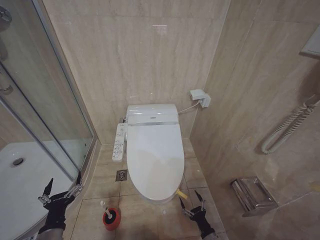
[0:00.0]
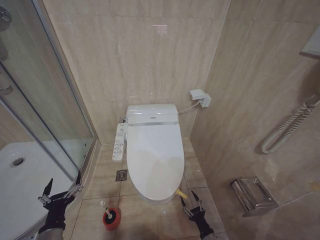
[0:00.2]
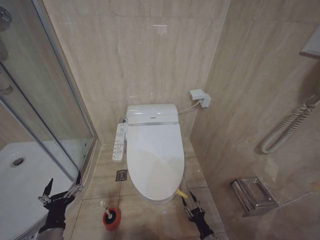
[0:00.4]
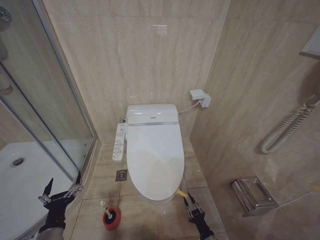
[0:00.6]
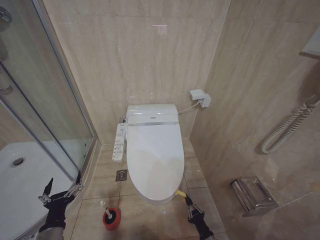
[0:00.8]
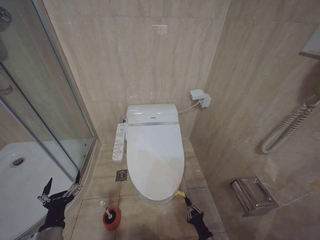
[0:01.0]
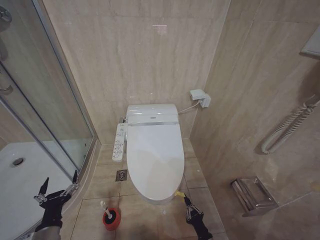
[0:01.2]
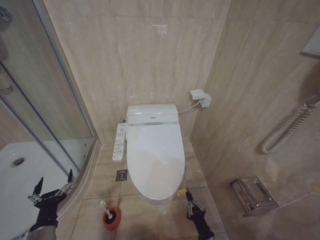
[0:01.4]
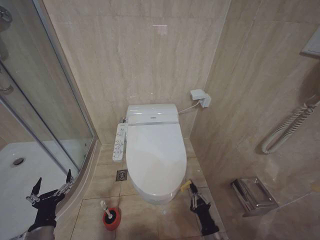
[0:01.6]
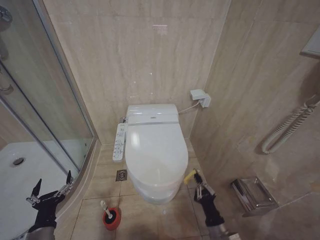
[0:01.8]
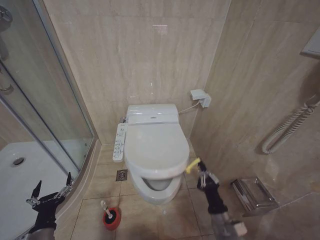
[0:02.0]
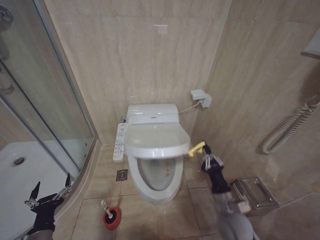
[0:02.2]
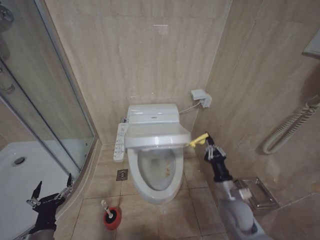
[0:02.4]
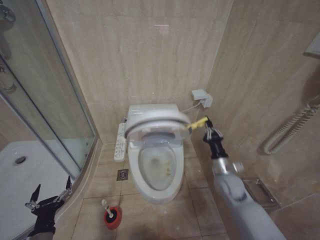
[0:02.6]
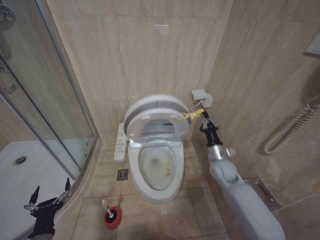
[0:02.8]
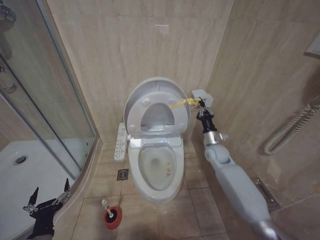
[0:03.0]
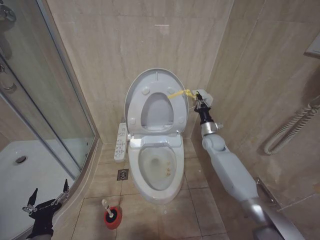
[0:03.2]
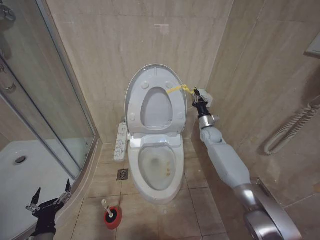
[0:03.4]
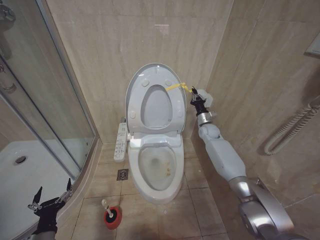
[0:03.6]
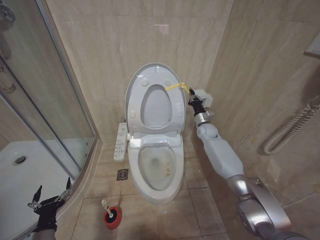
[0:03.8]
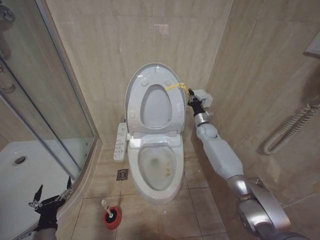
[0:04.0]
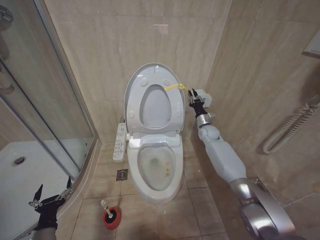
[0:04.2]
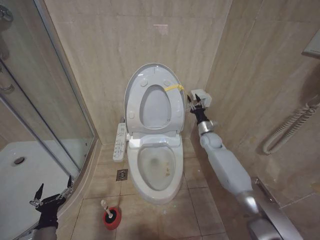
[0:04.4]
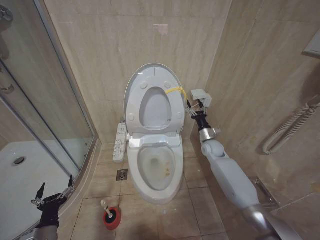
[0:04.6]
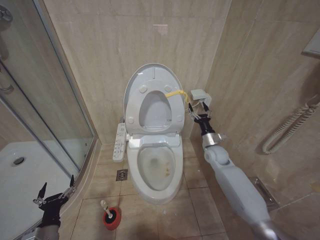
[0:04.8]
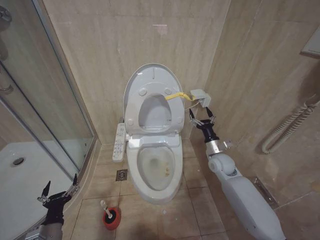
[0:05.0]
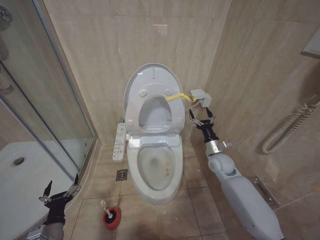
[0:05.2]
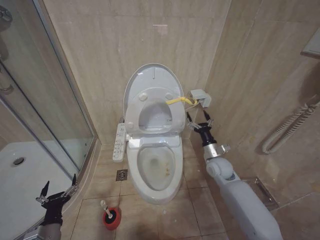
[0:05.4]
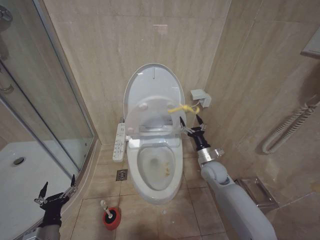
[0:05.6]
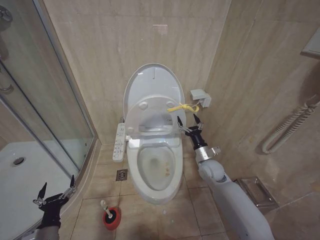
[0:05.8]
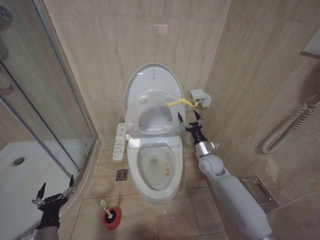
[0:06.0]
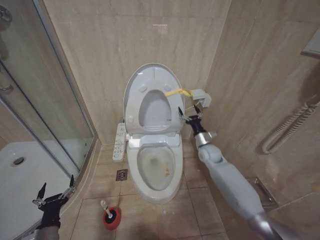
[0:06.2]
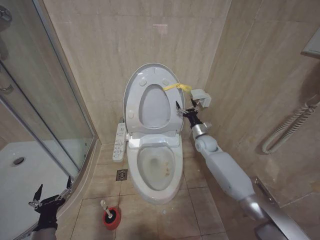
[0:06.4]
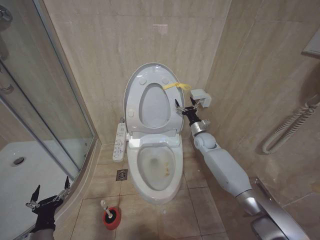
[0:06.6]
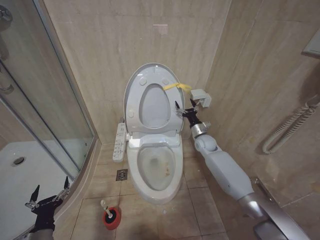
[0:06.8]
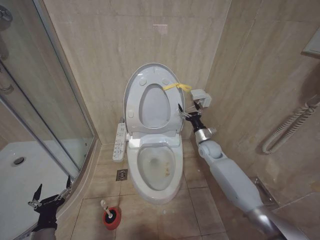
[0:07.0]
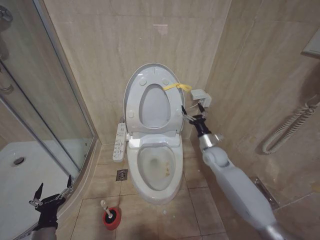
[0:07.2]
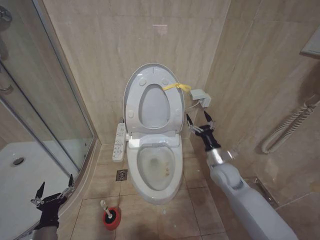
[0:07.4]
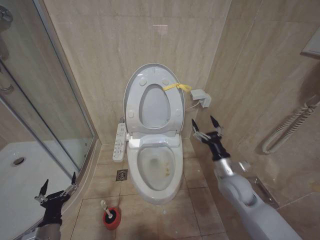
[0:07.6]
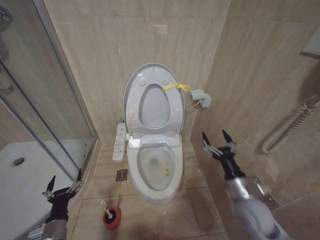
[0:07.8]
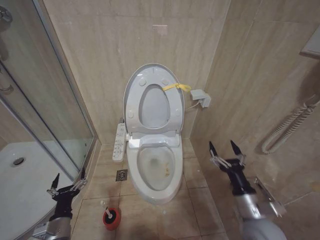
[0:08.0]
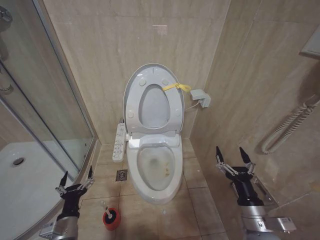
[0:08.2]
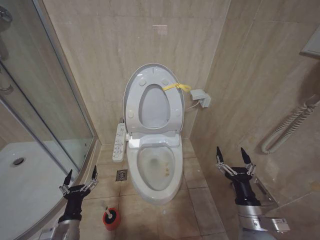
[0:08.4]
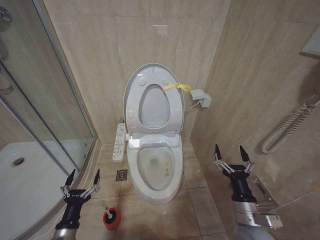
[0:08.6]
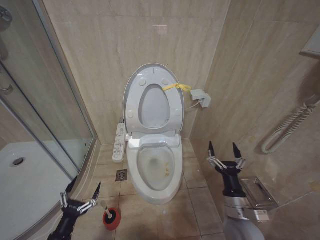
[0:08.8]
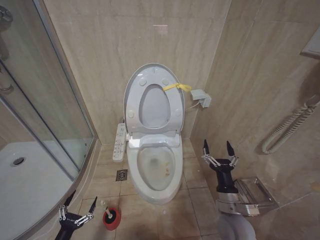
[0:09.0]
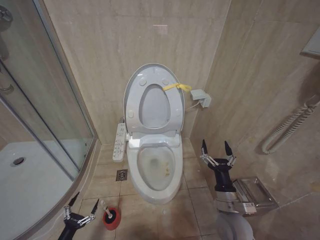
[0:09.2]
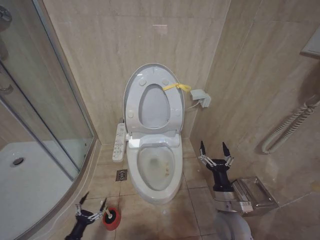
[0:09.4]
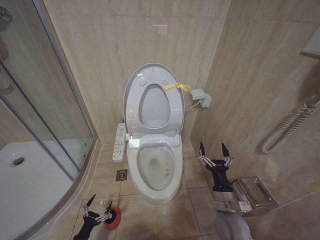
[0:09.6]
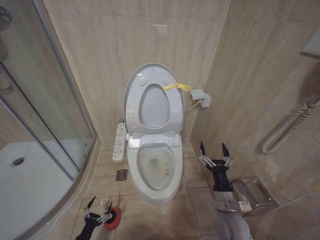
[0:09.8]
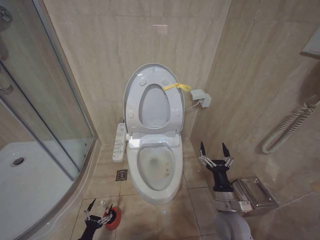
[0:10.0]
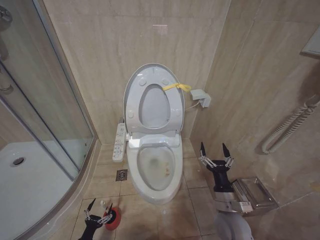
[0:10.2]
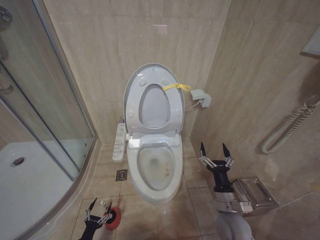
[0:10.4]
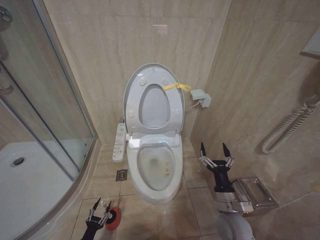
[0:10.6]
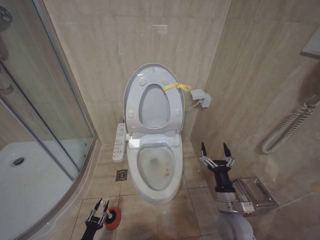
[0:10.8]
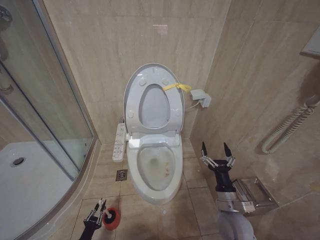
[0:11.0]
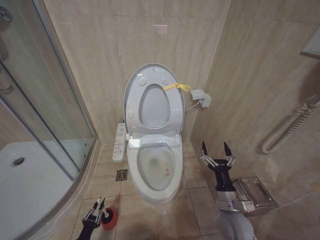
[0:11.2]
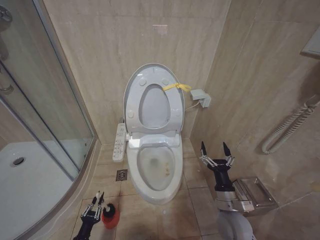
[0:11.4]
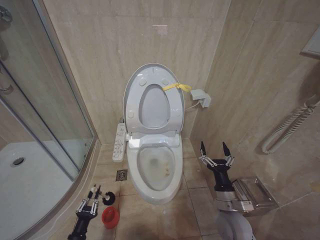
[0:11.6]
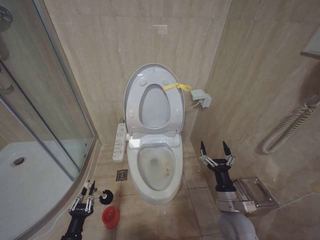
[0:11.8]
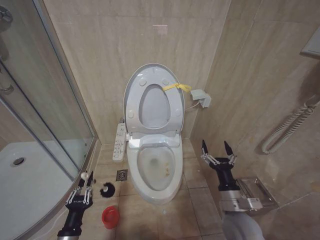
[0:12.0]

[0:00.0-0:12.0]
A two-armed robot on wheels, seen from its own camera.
Task of the whole recording: Open the toilet lid, clean the toilet bowl with a toilet brush, close the toilet lid, and flush.
0:00.0 to 0:01.6: The right gripper heads upward, covering roughly 10 cm, and closes its fingers.
0:01.6 to 0:03.0: The right gripper heads forward and upward, covering roughly 35 cm.
0:03.0 to 0:04.4: The right gripper heads forward, covering approximately 10 cm.
0:04.4 to 0:06.0: The right gripper is displaced backward by about 15 cm, and opens its fingers.
0:06.0 to 0:07.6: The right gripper is displaced backward by approximately 10 cm.
0:07.6 to 0:09.0: The right gripper is displaced backward and downward by some 15 cm, while the left gripper heads downward, covering about 5 cm, and travels to the right and back again, approximately 5 cm each way.
0:09.0 to 0:10.4: The left gripper moves downward, approximately 20 cm.
0:10.4 to 0:12.0: The left gripper moves upward, approximately 20 cm, and closes up.

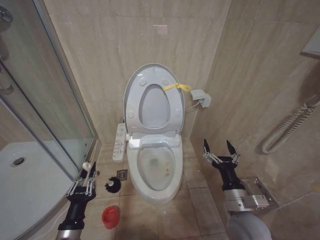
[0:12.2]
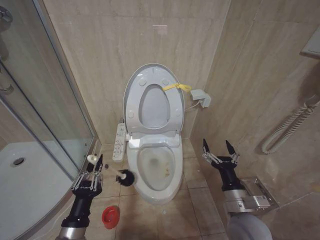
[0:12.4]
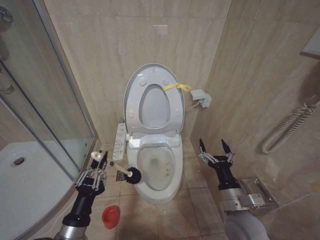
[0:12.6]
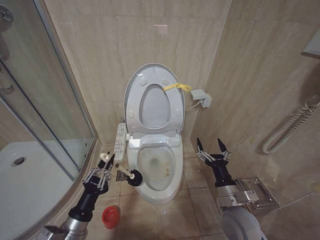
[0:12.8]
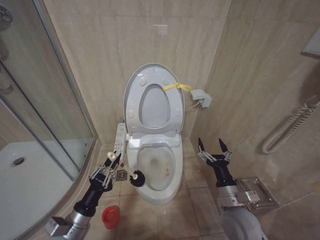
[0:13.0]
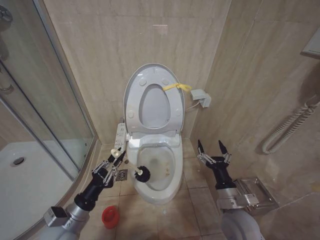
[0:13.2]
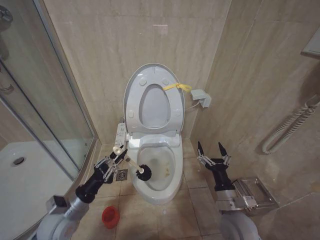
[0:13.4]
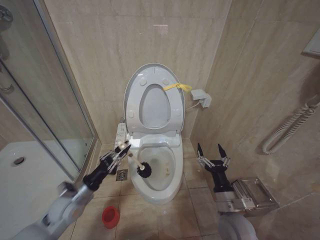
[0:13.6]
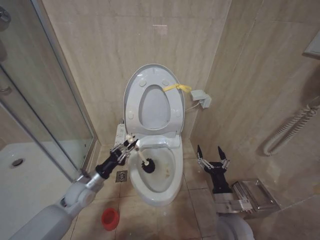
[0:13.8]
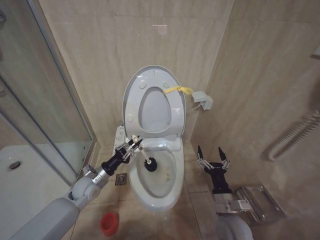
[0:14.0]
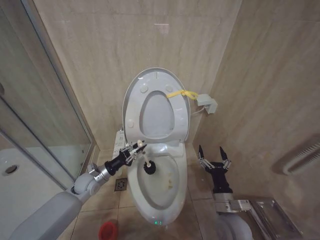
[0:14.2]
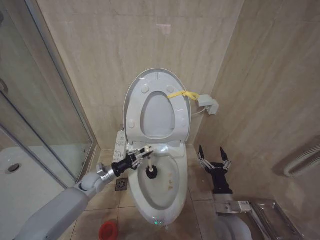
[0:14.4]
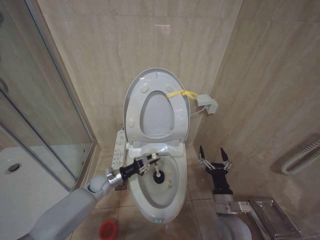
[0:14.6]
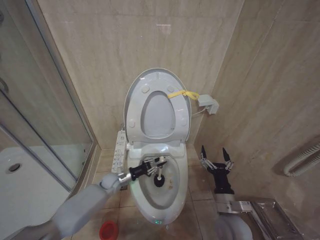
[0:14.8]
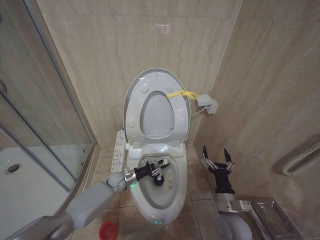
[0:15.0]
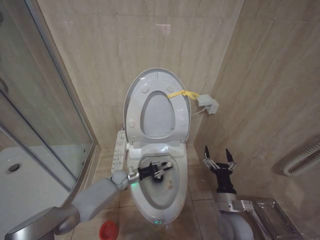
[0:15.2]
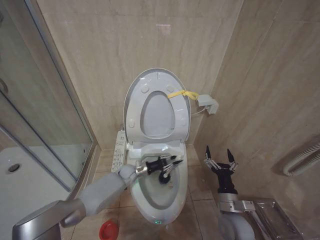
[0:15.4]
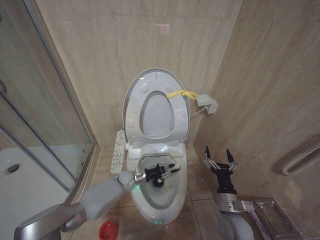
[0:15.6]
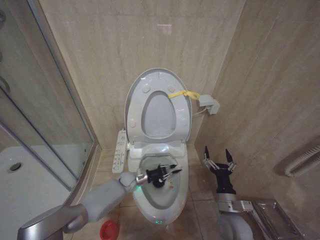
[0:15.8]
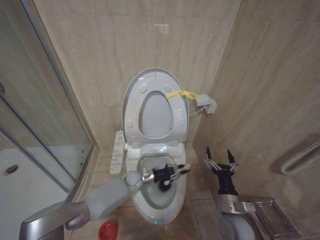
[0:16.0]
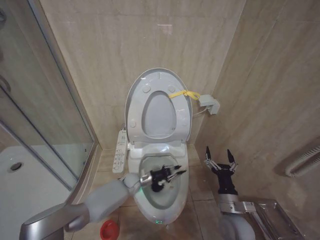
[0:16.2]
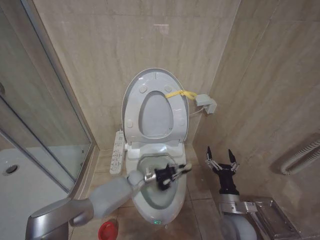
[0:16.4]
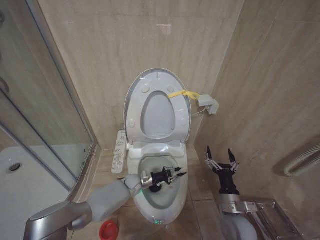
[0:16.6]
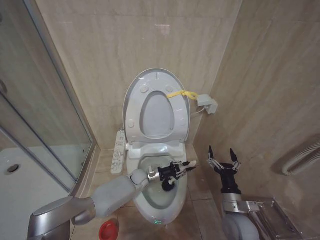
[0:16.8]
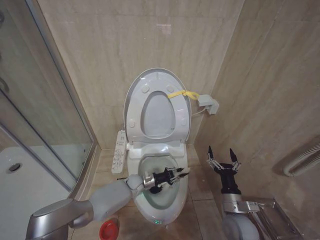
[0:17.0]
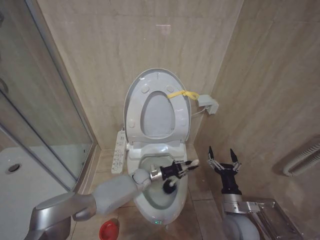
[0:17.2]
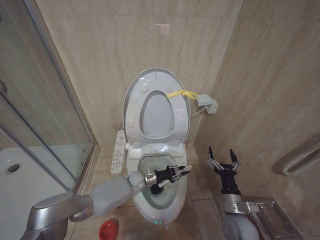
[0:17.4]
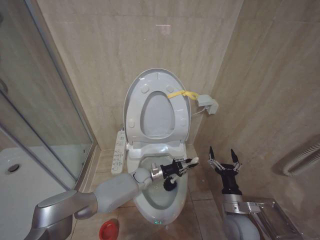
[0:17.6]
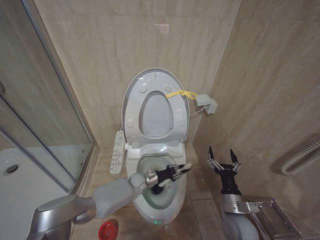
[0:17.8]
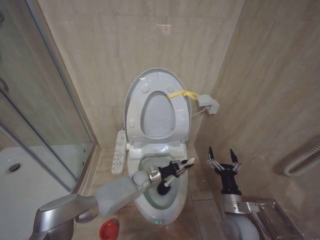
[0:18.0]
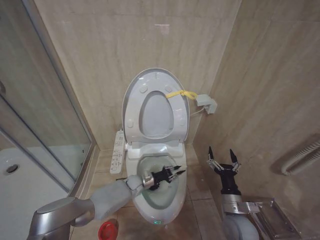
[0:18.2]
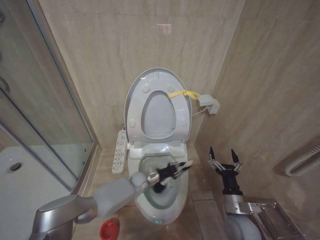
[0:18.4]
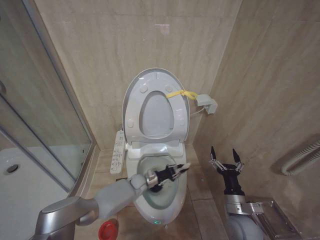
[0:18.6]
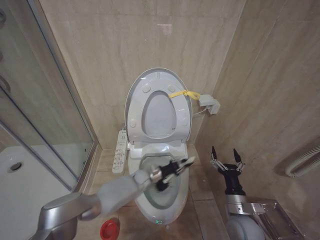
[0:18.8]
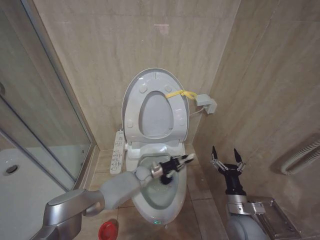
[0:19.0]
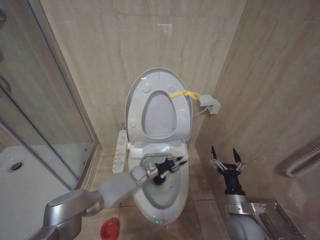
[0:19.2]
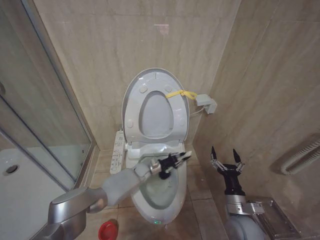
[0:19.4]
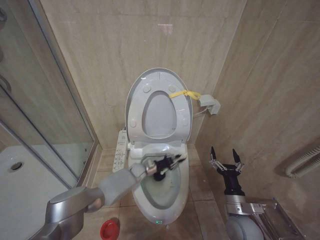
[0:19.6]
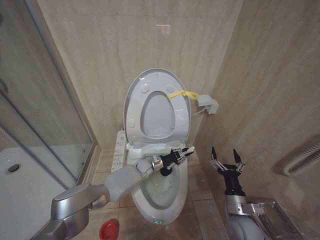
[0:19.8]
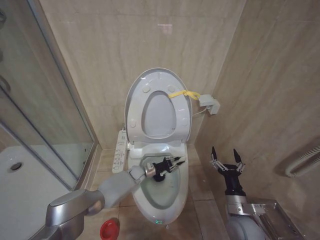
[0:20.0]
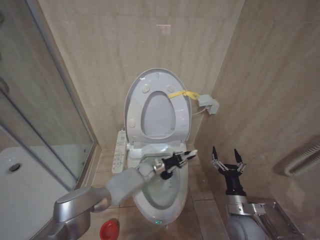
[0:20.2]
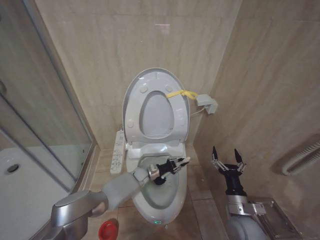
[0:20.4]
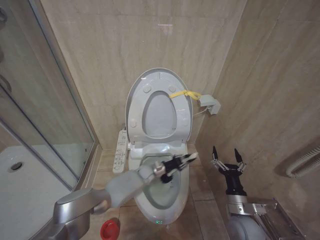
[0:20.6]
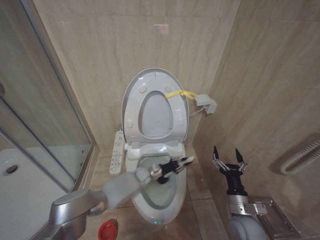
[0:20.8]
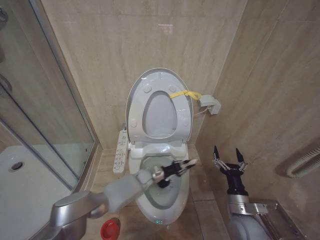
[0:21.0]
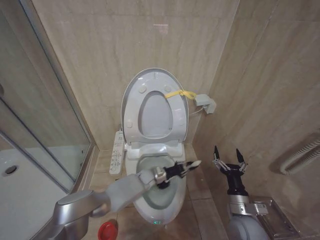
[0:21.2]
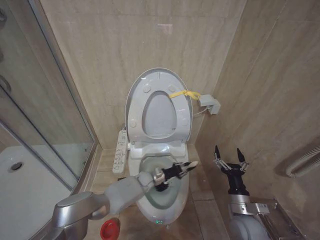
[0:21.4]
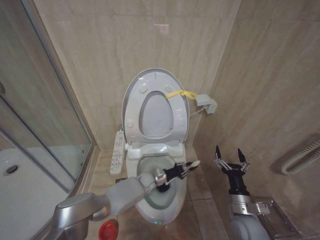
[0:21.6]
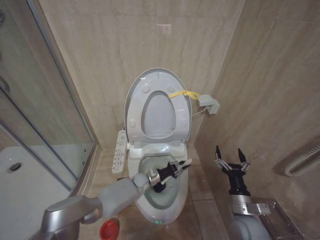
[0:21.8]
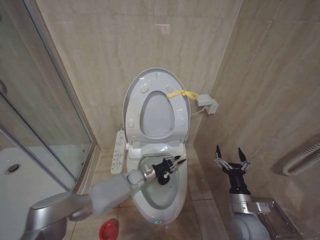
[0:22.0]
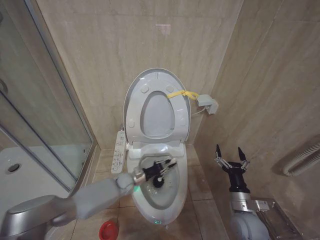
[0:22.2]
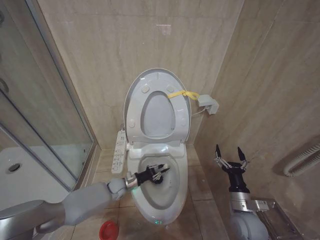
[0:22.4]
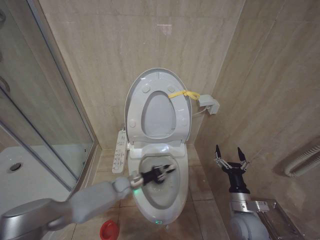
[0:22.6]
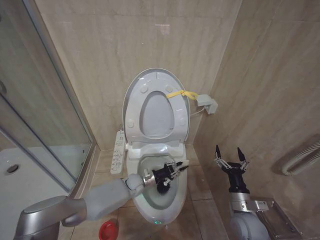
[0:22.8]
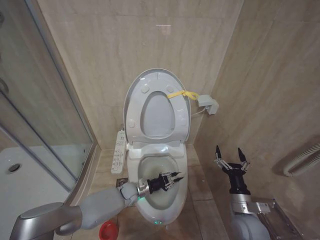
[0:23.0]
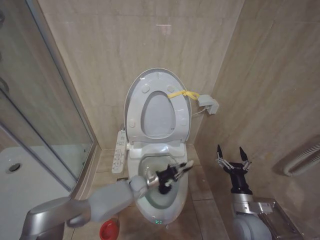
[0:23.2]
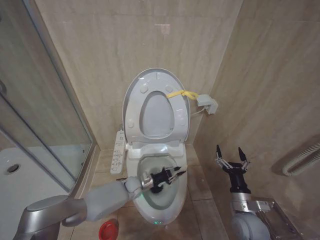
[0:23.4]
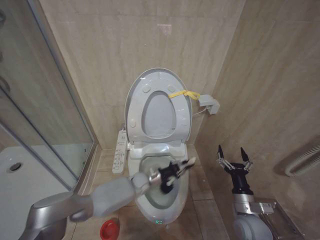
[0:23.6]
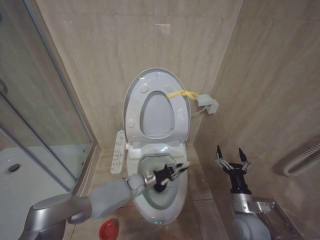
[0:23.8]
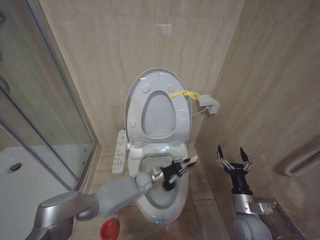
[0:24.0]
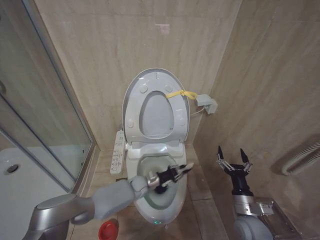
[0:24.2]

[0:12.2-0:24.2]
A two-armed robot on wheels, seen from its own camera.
Task of the whole recording: Open the toilet lid, clean the toilet bowl with a toilet brush, close the toilet lid, and flush.
0:12.2 to 0:13.8: The left gripper is displaced forward by approximately 20 cm. The right gripper moves downward, about 5 cm.
0:13.8 to 0:15.2: The left gripper is displaced downward, forward and to the right by roughly 20 cm.
0:15.2 to 0:16.6: The left gripper heads to the right, covering some 10 cm.
0:18.2 to 0:19.8: The left gripper travels forward by roughly 5 cm.
0:19.8 to 0:21.2: The left gripper shifts by about 5 cm.
0:21.2 to 0:22.6: The left gripper goes about 15 cm to the left.
0:22.6 to 0:24.2: The left gripper travels to the right by approximately 15 cm.
